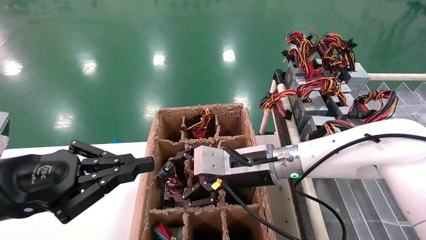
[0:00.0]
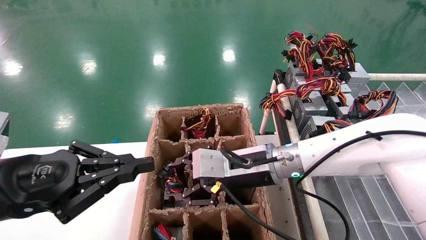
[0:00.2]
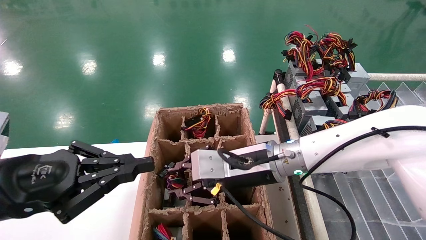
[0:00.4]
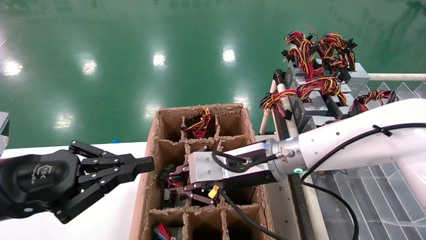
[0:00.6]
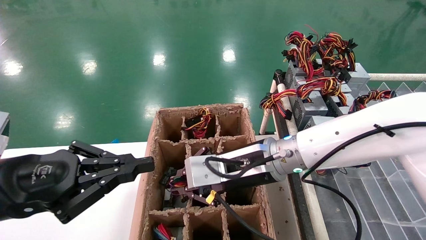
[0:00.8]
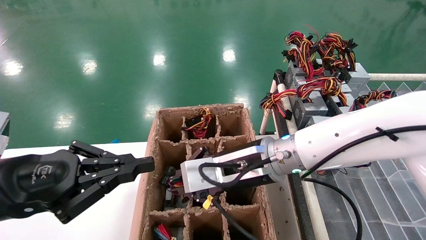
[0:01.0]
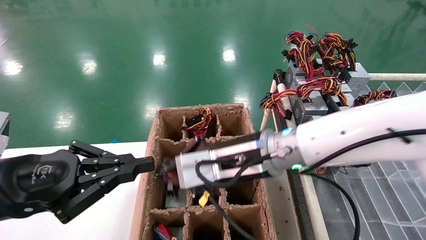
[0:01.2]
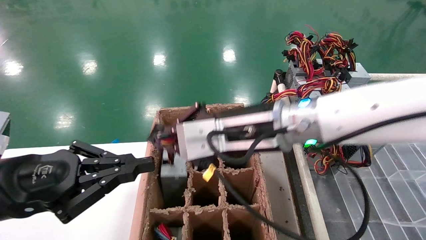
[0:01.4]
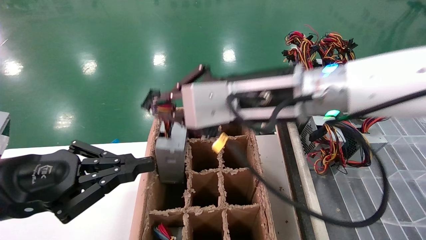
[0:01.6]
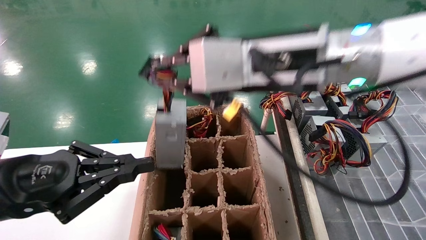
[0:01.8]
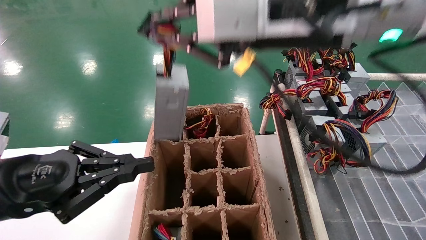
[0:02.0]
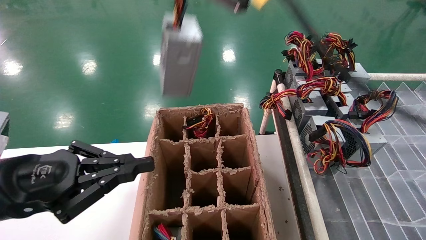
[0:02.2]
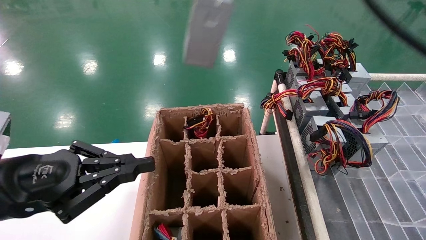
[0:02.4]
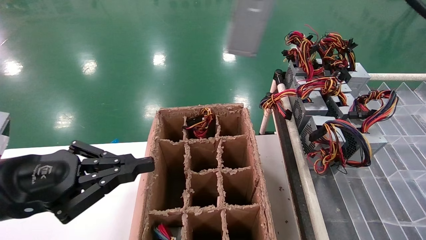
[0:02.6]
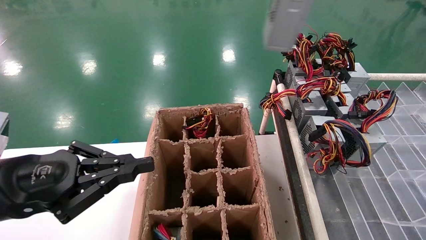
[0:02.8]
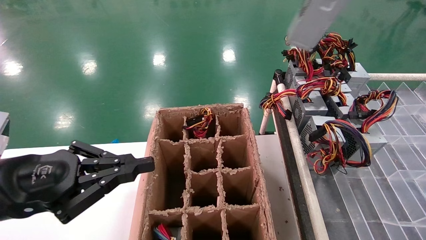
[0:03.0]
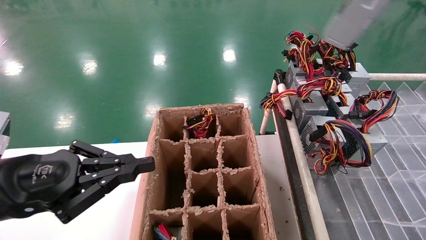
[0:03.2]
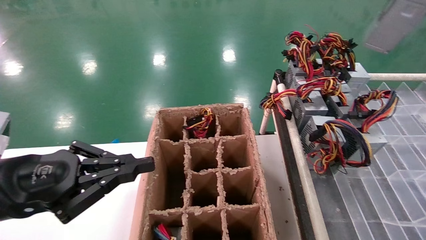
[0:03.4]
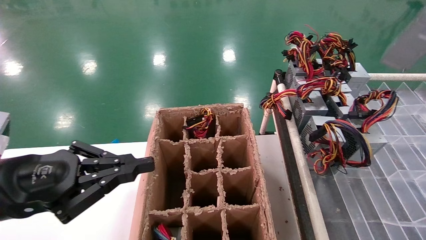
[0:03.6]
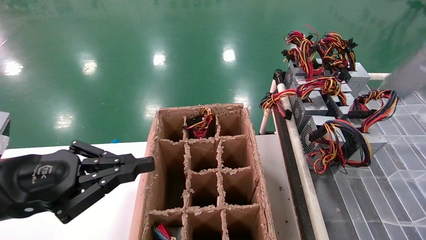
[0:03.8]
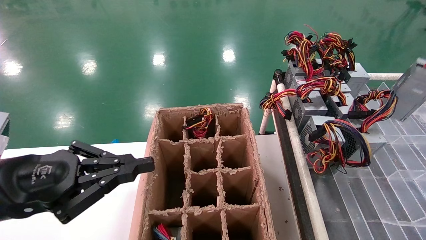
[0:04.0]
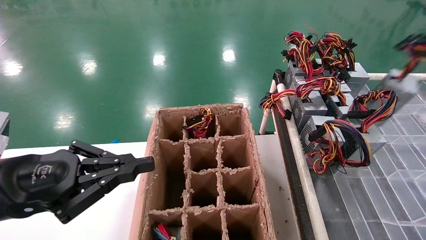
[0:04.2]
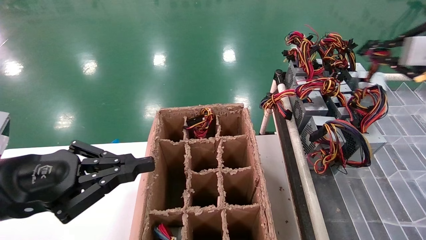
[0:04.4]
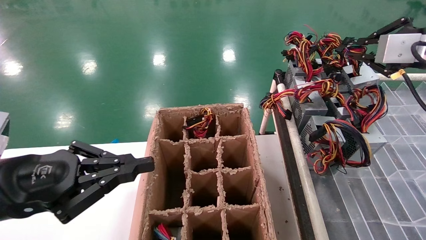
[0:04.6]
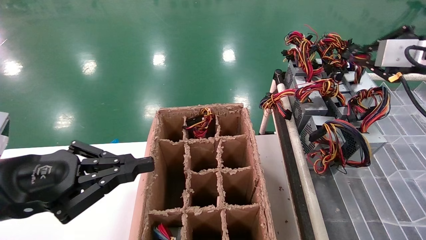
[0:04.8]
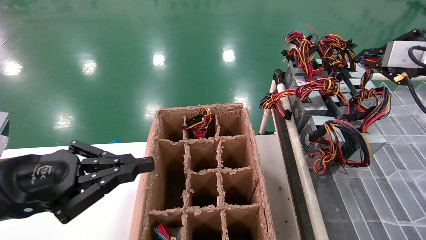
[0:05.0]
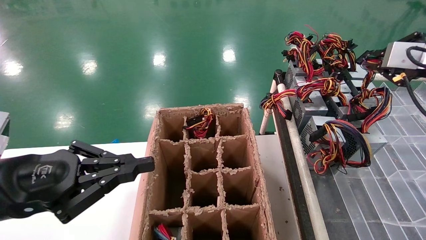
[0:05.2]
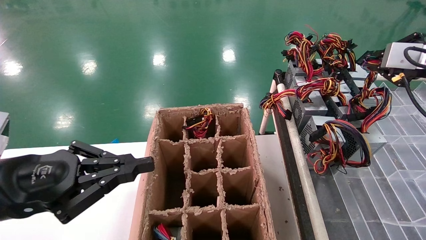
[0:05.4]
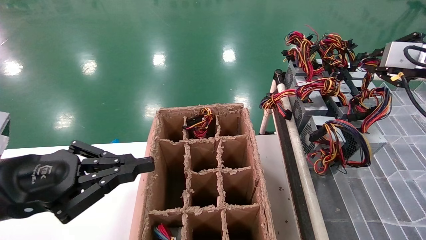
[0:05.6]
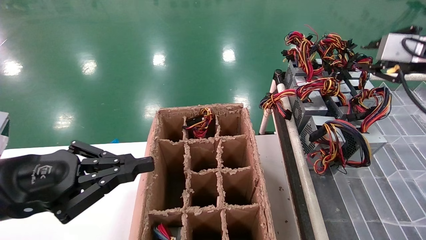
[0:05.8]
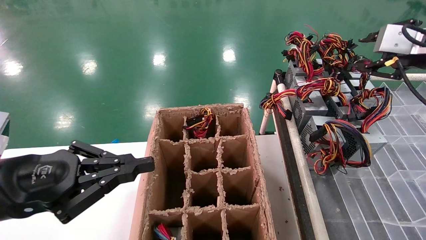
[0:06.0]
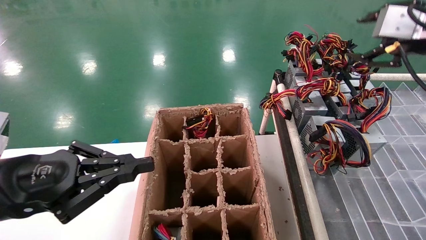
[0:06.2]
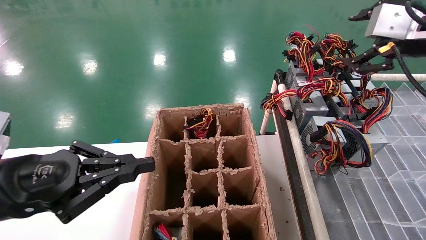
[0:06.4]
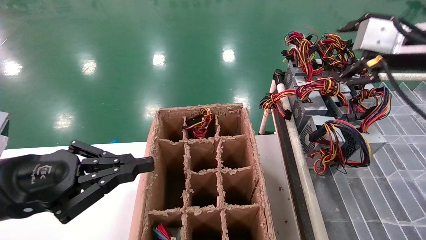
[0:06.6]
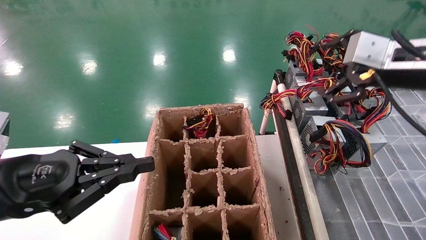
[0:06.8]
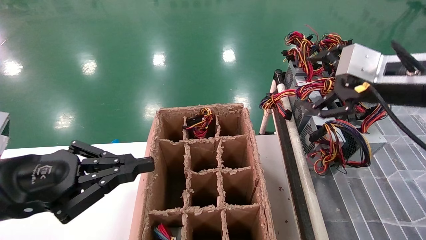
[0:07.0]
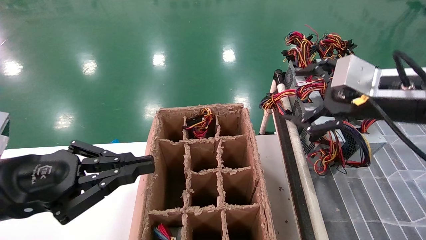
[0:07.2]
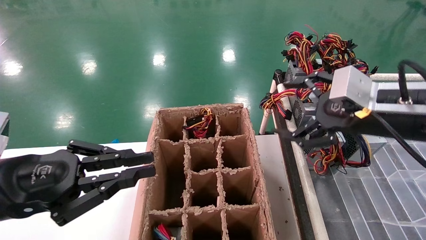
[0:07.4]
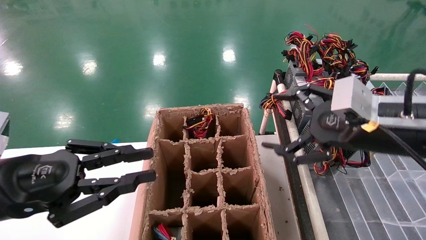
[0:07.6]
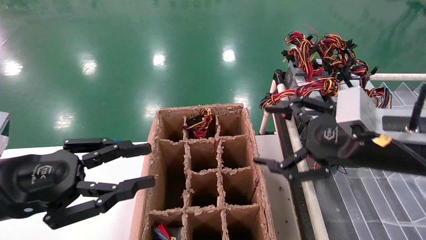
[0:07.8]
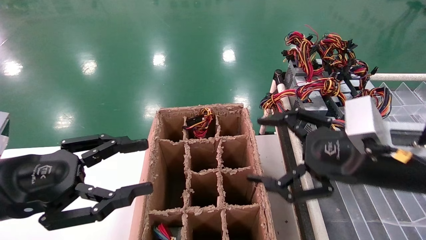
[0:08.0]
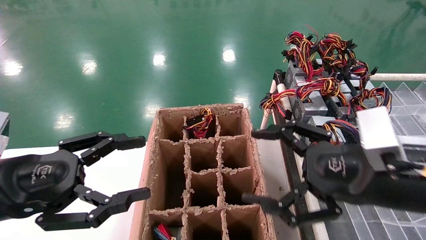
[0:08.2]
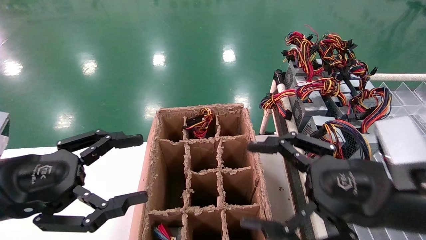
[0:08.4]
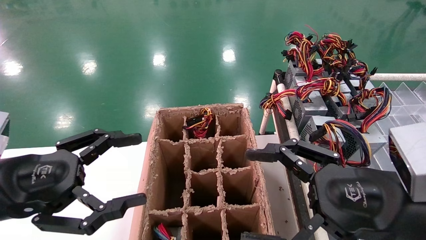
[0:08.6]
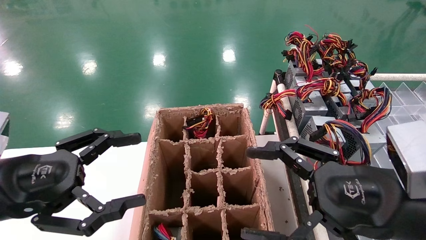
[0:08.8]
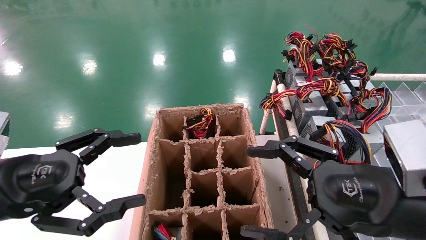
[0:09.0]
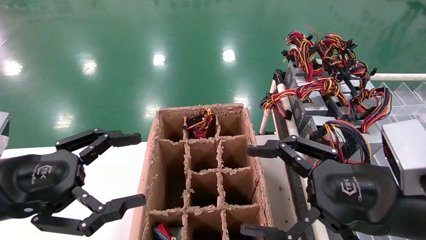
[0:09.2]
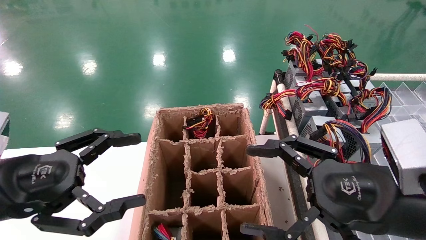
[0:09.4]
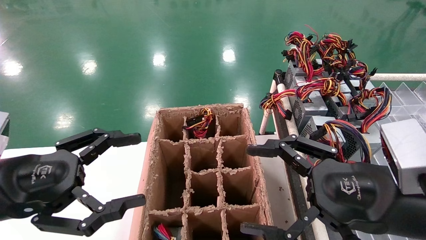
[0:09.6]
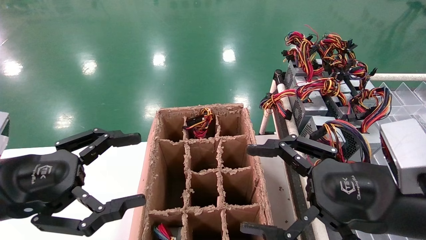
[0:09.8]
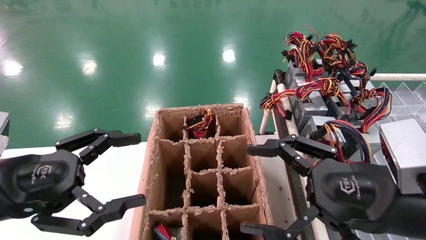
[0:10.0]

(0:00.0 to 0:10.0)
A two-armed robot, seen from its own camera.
Step, 0:01.2 - 0:06.4: Place the main unit power supply in the designated area.
0:00.0 - 0:01.4: The right gripper shifts some 15 cm upward and backward, and closes its fingers.
0:01.4 - 0:02.8: The right gripper shifts about 30 cm upward and to the right.
0:02.8 - 0:04.2: The right gripper shifts approximately 25 cm to the right and downward.
0:04.2 - 0:05.8: The right gripper moves forward, some 5 cm.
0:05.8 - 0:07.2: The right gripper shifts some 15 cm to the left and downward, and opens up.
0:07.2 - 0:08.6: The left gripper opens its fingers. The right gripper shifts some 15 cm backward, downward and to the left.
0:08.6 - 0:10.0: The two grippers keep their place.

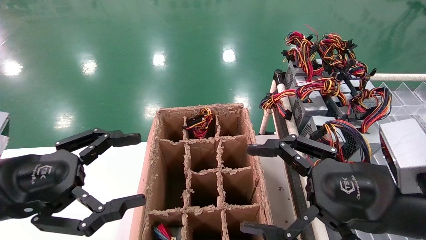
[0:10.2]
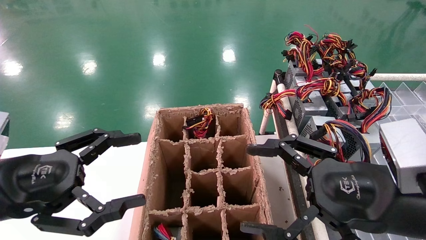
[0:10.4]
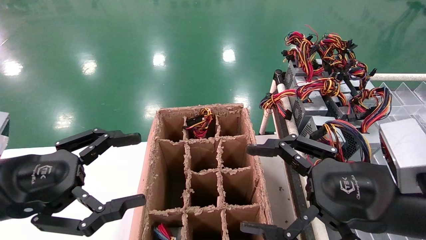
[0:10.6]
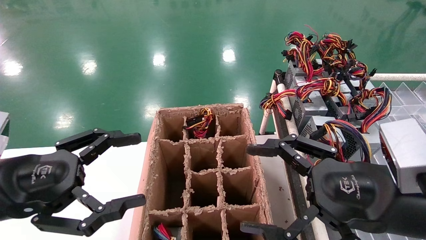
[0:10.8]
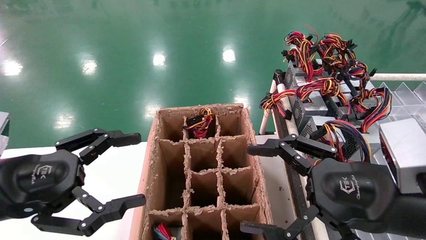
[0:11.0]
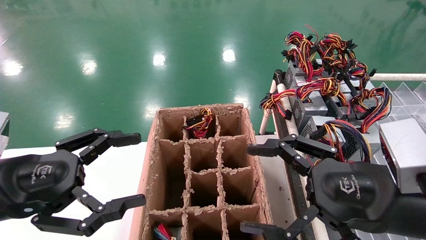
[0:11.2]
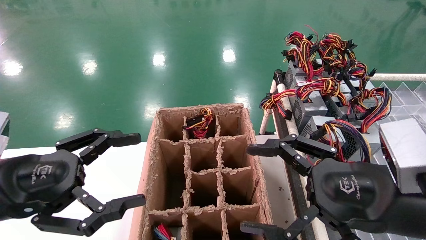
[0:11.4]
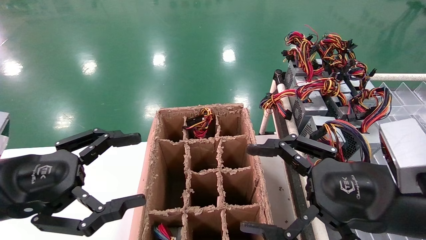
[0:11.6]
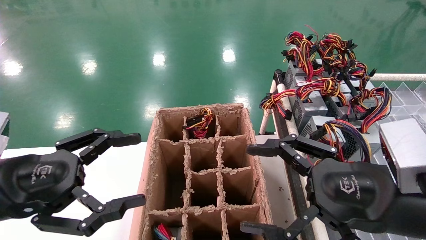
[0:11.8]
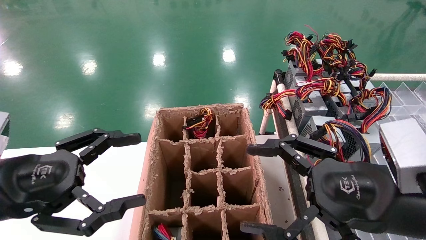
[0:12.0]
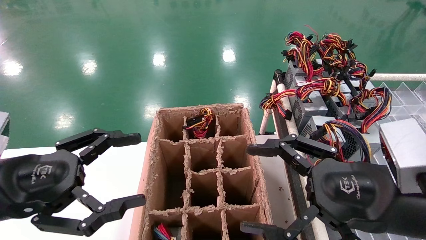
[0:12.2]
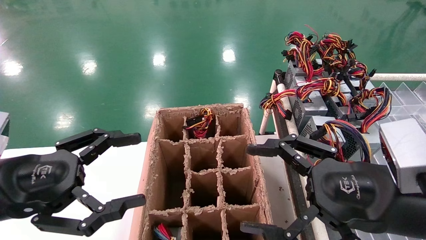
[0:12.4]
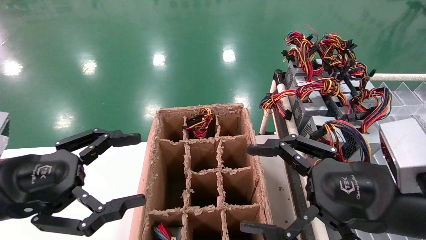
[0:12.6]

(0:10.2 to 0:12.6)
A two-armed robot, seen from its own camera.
0:10.2 - 0:12.6: The two grippers keep their place.
